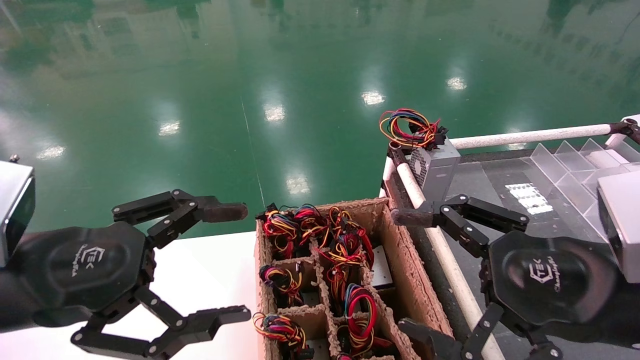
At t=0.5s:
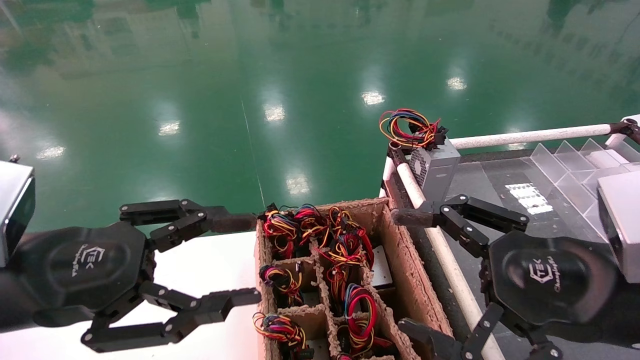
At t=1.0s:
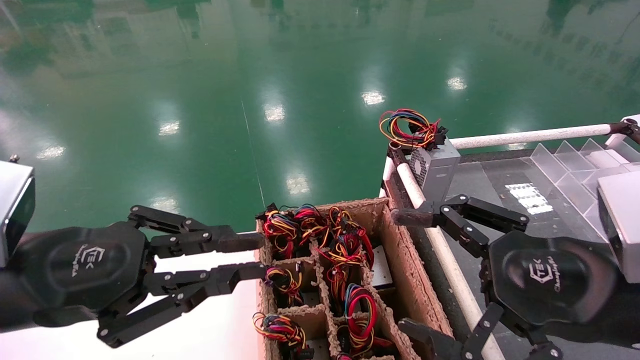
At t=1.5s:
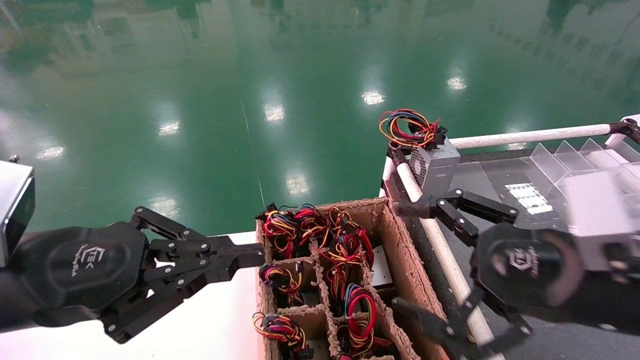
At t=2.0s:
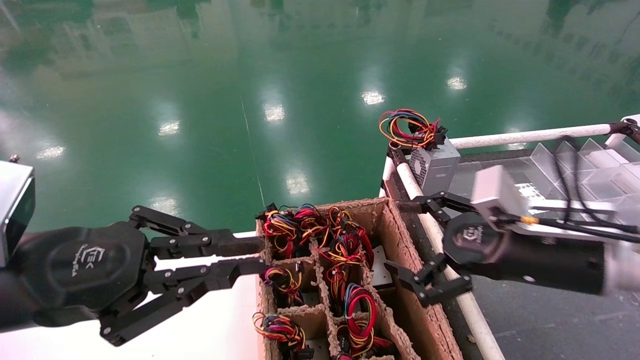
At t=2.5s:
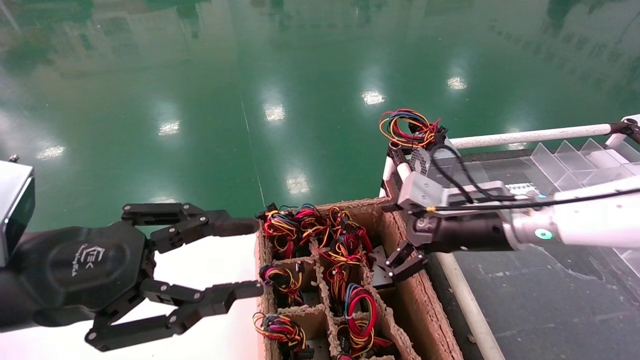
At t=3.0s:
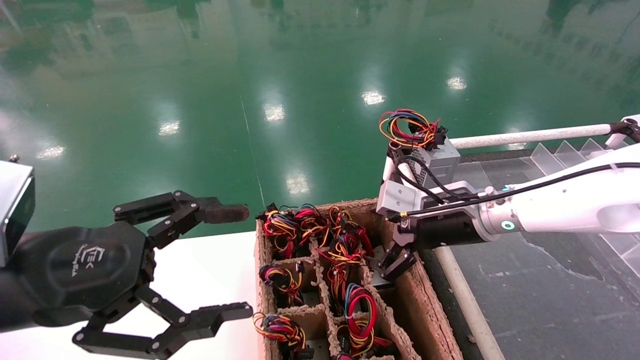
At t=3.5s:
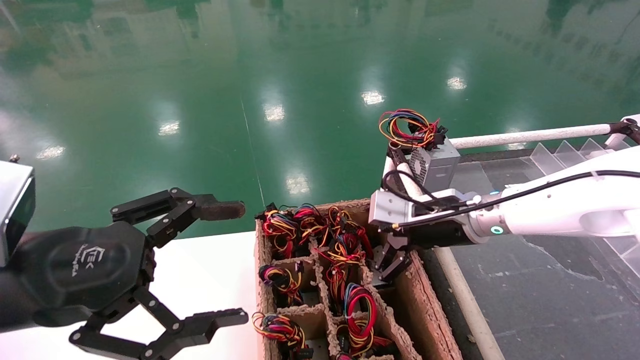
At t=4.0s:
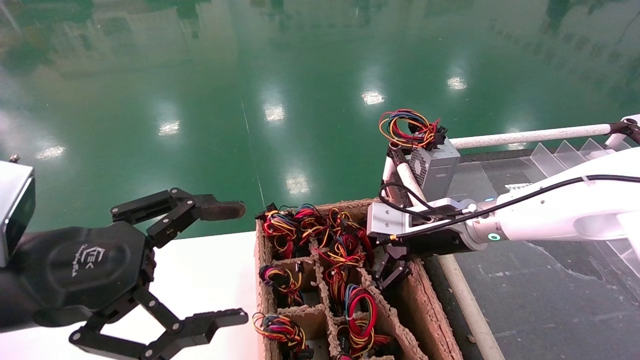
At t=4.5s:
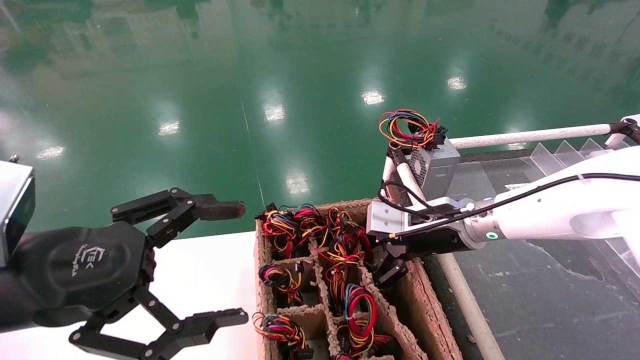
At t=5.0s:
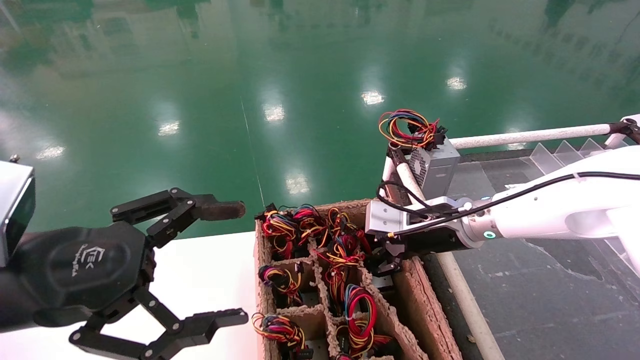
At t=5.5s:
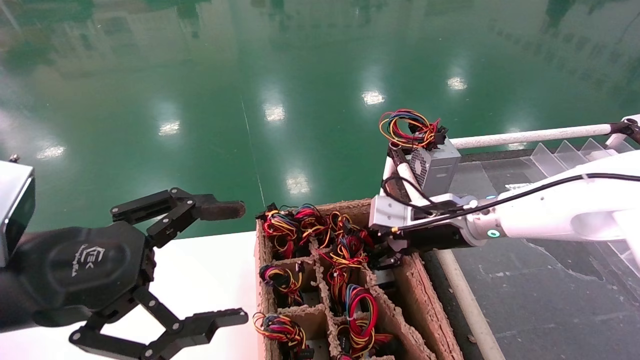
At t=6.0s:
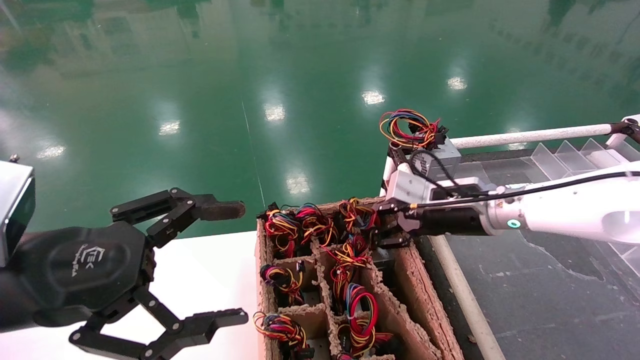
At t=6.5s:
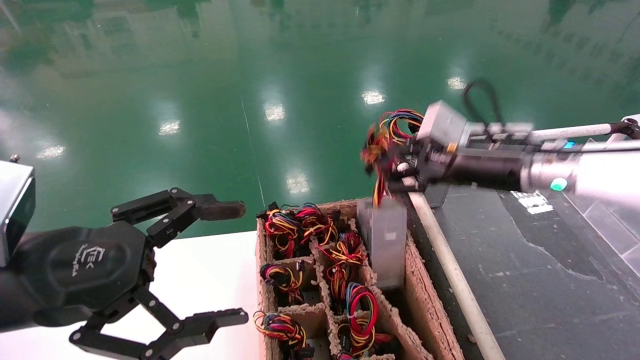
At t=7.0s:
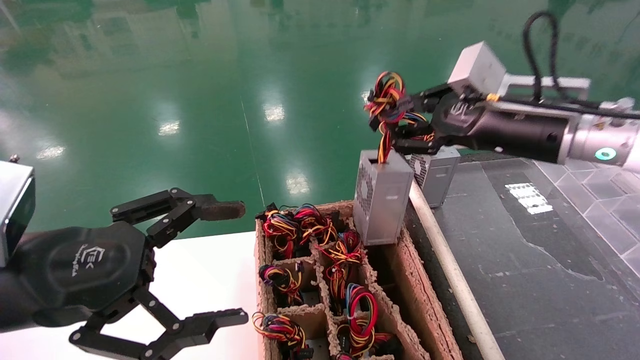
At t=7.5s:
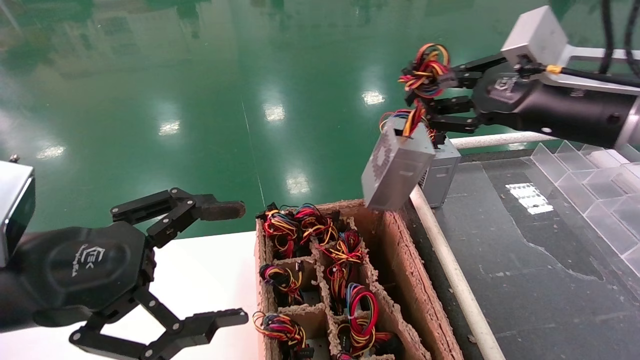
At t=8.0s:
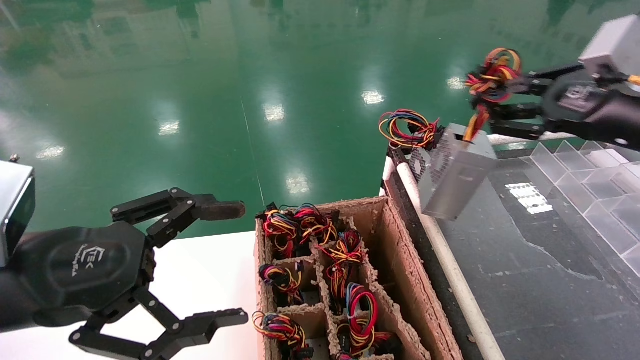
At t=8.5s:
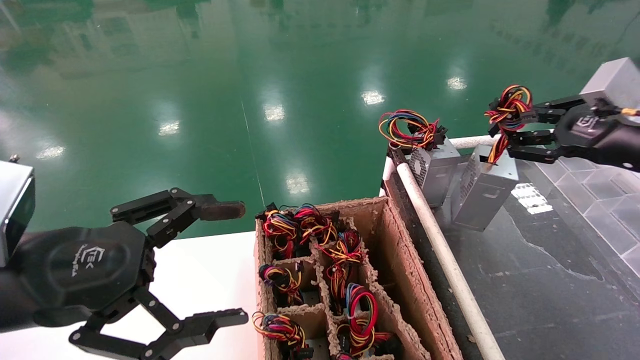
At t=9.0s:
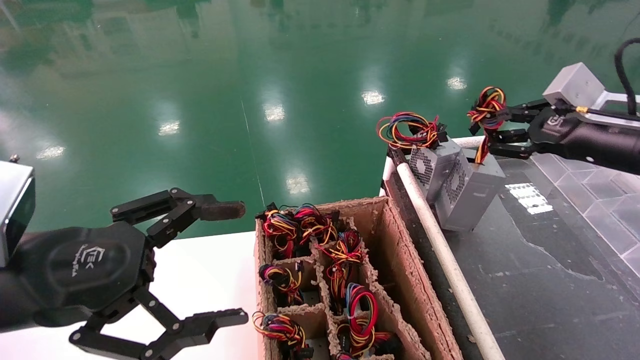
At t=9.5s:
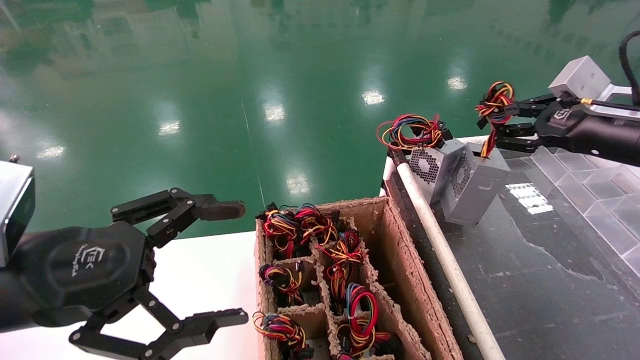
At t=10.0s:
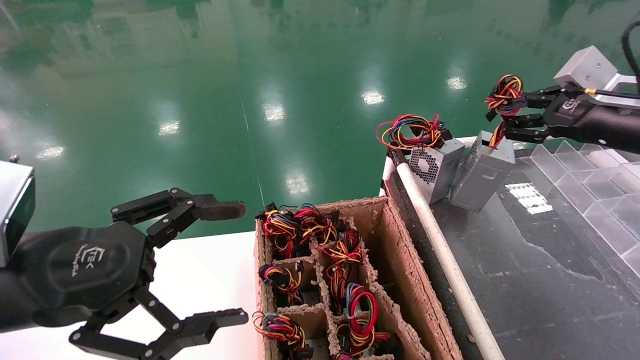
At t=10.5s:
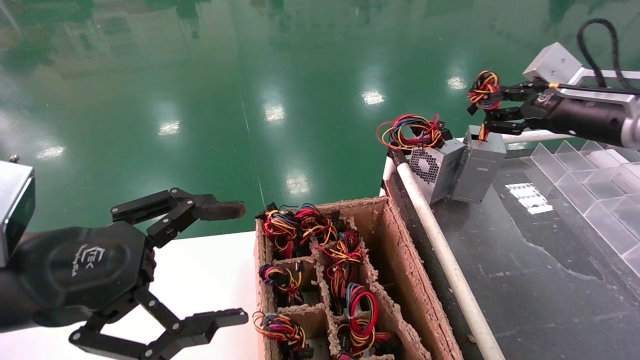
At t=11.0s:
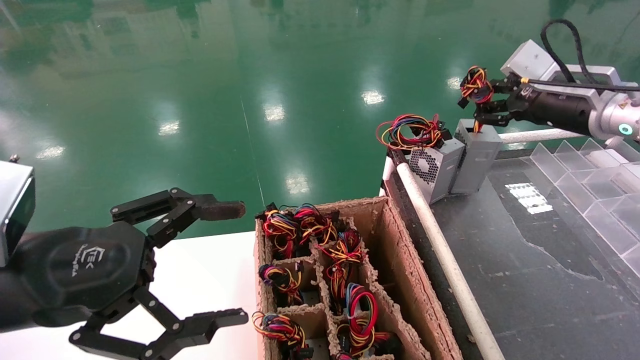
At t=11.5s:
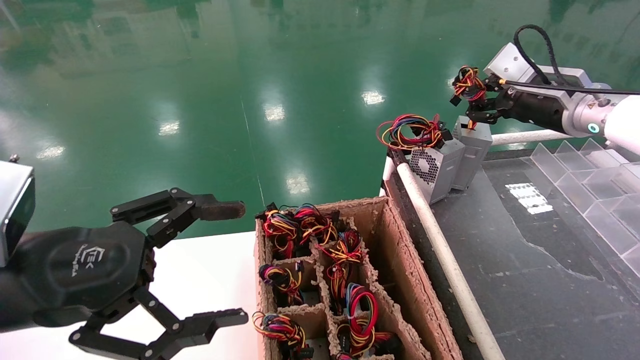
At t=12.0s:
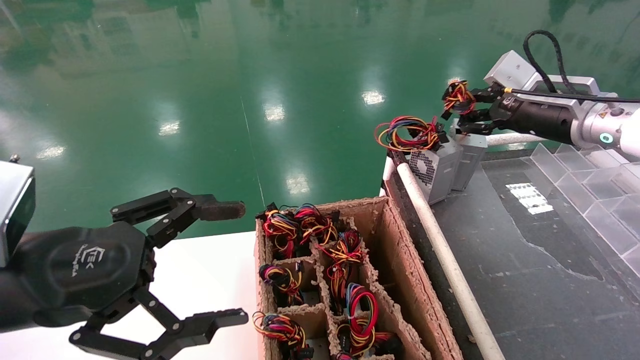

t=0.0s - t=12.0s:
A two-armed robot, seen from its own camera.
Step, t=1.5s - t=5.0s: Grab and lift the power supply from the large box.
t=0.0s - t=2.0s: The left gripper closes its fingers. The right gripper shifts some 10 cm forward.
t=2.0s - t=4.0s: The right gripper is displaced forward and to the left by about 15 cm; the left gripper opens.
t=4.0s - t=6.0s: The right gripper closes up.
t=6.0s - t=8.0s: The right gripper is displaced to the right, upward and backward by roughly 20 cm.
t=8.0s - t=10.0s: The right gripper is displaced forward by about 5 cm.
t=10.0s - t=12.0s: The right gripper shifts about 5 cm to the left.

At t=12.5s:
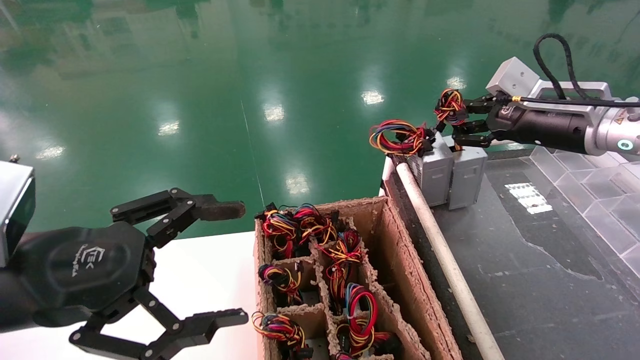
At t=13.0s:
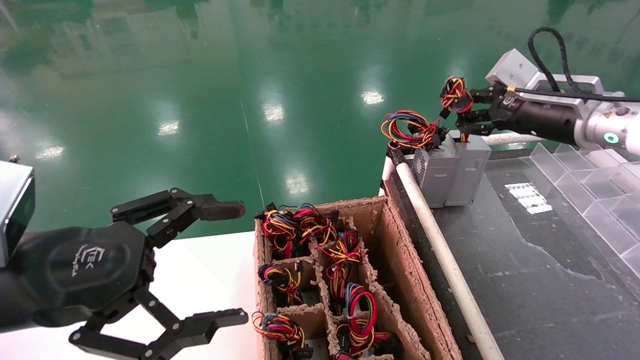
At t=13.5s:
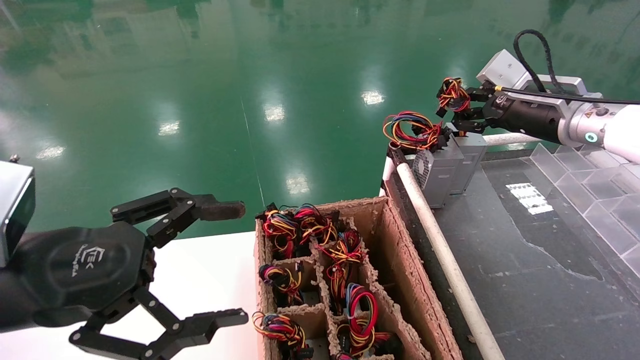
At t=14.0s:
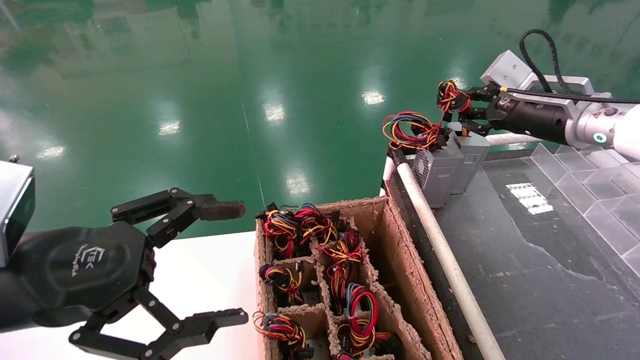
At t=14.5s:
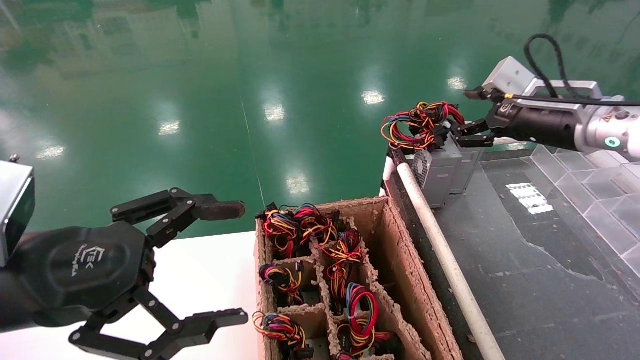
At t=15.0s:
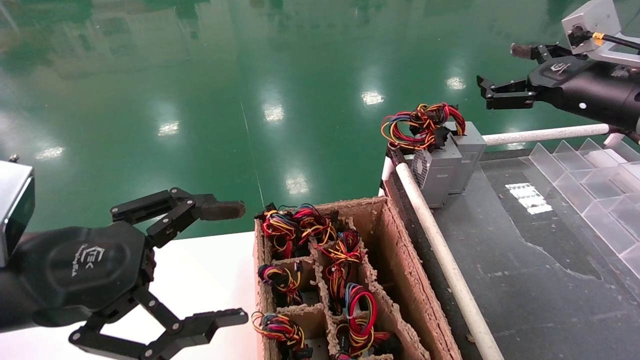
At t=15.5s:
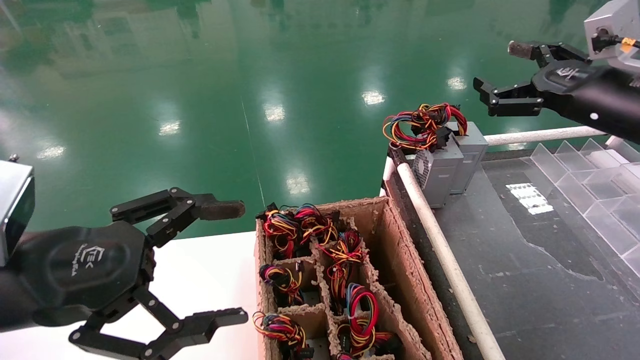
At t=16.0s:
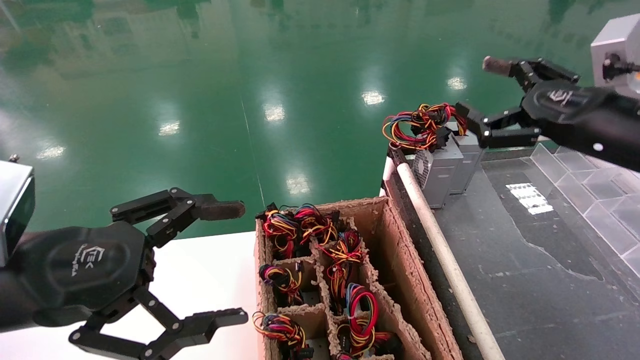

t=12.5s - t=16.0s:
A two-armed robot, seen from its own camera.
t=12.5s - t=14.5s: The right gripper opens its fingers.
t=14.5s - t=16.0s: The right gripper shifts some 10 cm backward, and opens.
